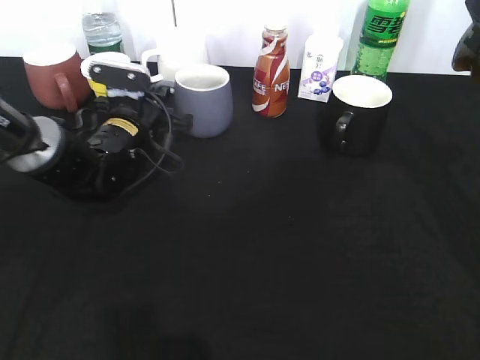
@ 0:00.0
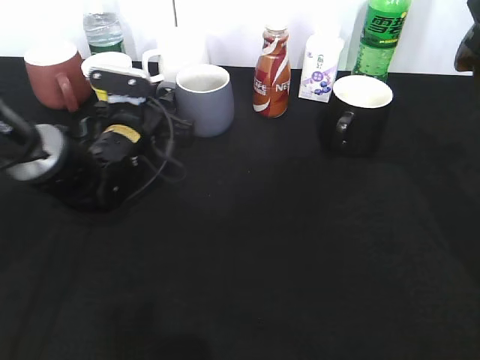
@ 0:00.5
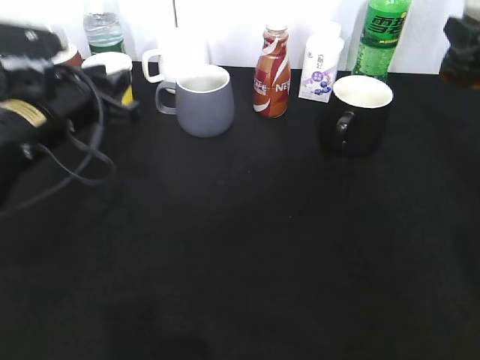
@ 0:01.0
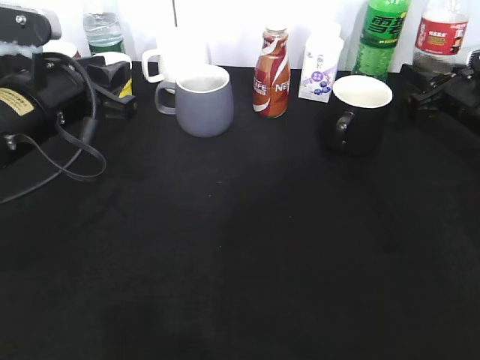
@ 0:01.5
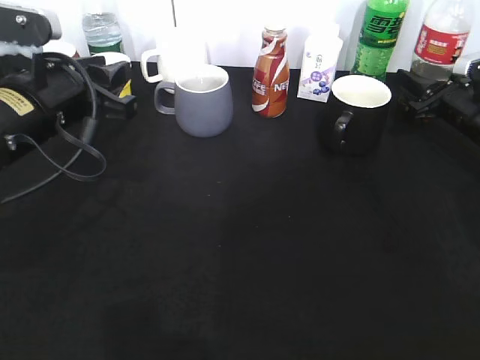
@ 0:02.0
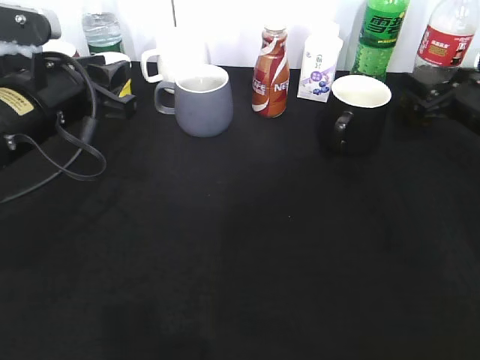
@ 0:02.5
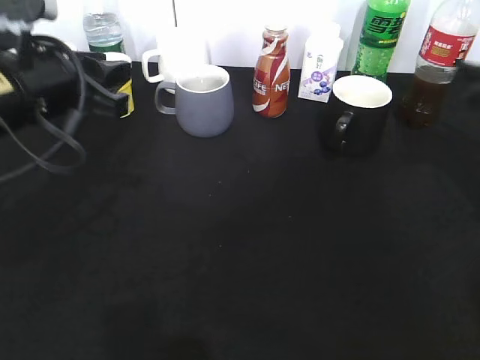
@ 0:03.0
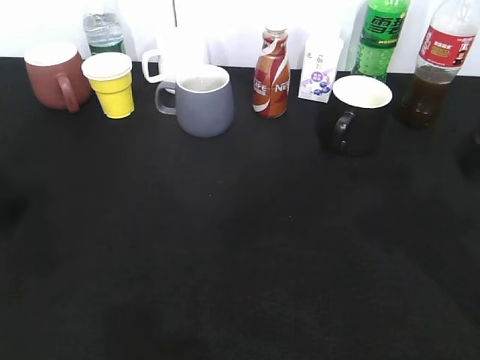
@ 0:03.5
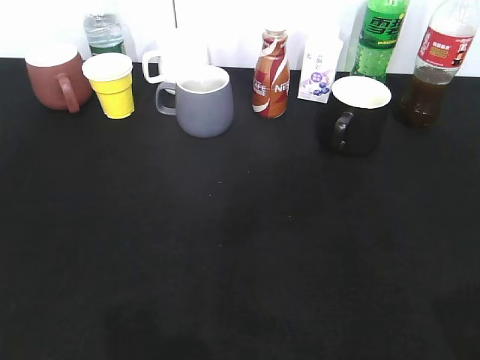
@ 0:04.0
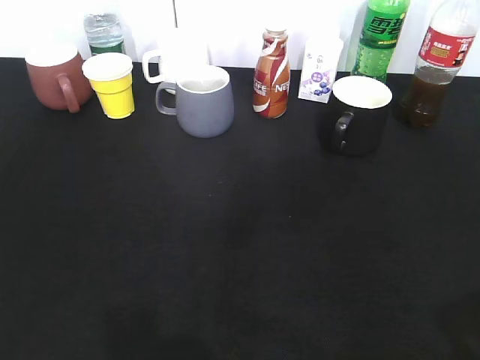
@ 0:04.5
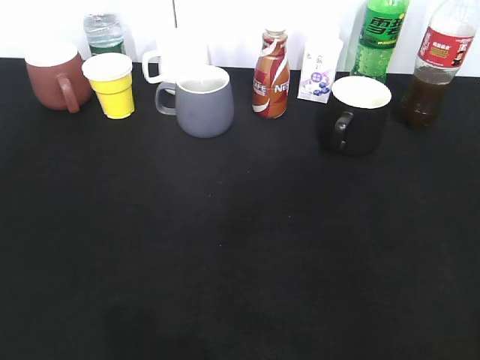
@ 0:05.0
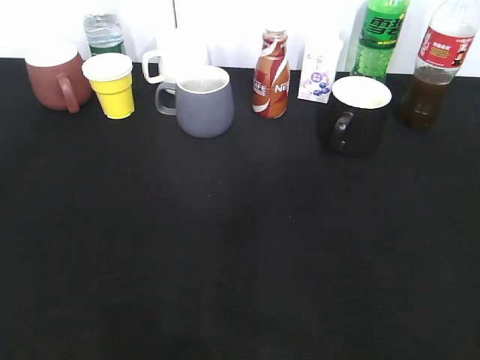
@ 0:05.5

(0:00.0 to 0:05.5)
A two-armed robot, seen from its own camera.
Step, 0:01.0 - 0:02.5: Place the cola bottle on the table with right gripper.
0:00.0 - 0:02.0: The left gripper shifts roughly 15 cm backward and upward, and opens up. Meanwhile the right gripper heads downward and forward, covering about 20 cm.
0:02.0 - 0:03.5: The right gripper moves backward and upward, approximately 30 cm, and opens up, while the left gripper is displaced backward and to the left by roughly 10 cm.
0:03.5 - 0:05.5: The grippers both shift backward by roughly 20 cm. The left gripper opens.
